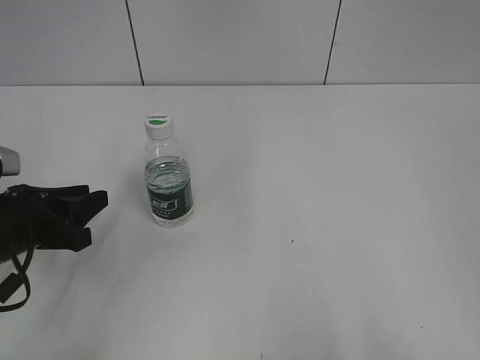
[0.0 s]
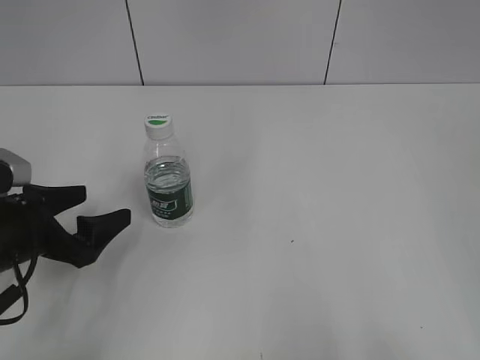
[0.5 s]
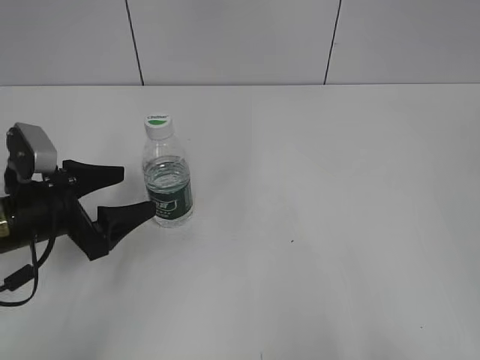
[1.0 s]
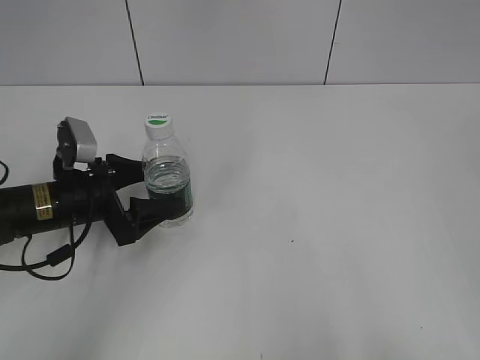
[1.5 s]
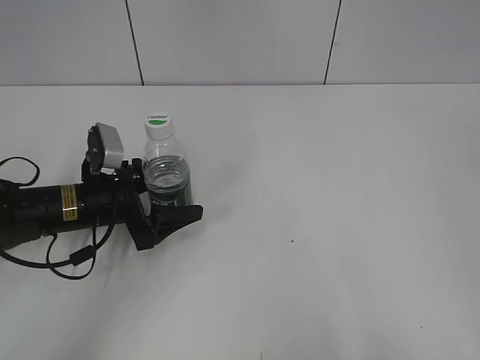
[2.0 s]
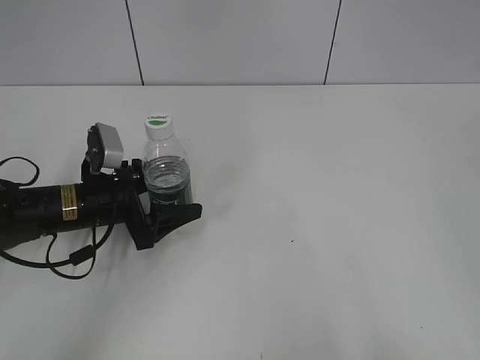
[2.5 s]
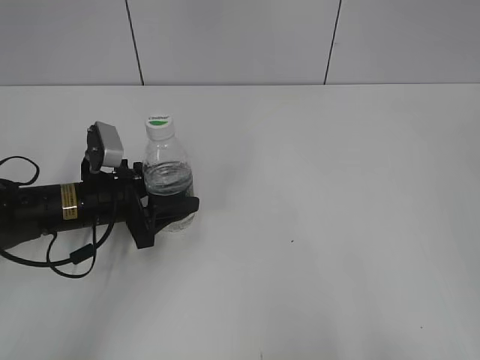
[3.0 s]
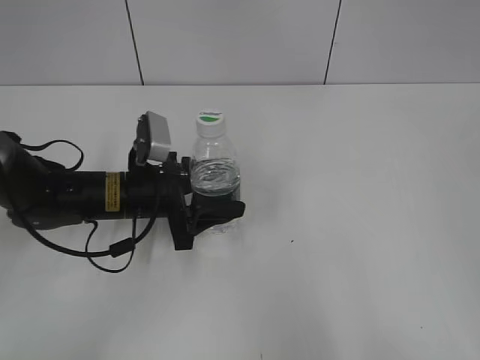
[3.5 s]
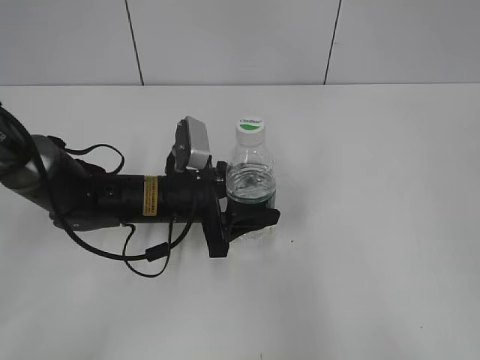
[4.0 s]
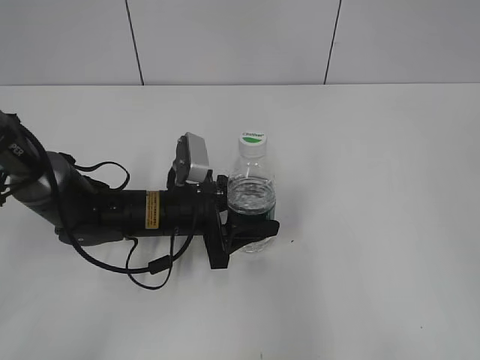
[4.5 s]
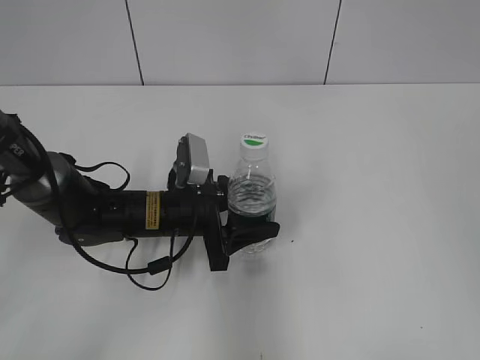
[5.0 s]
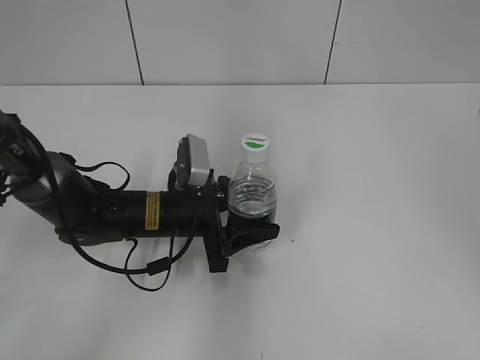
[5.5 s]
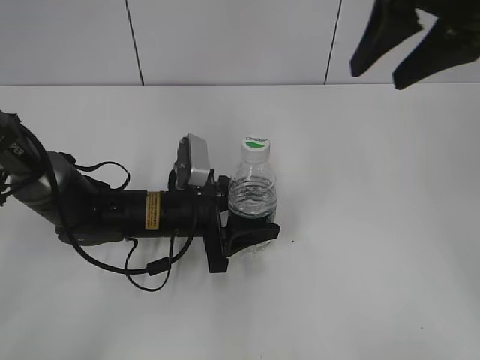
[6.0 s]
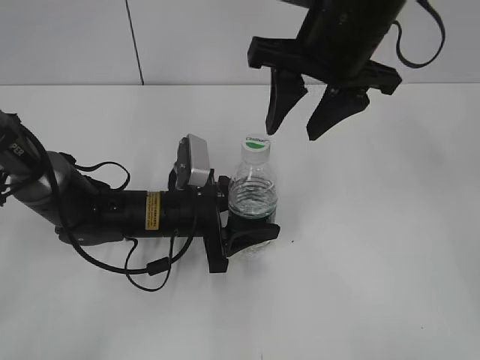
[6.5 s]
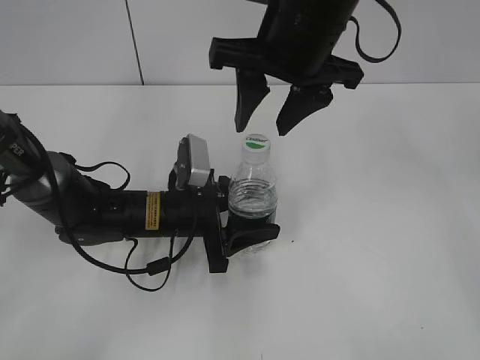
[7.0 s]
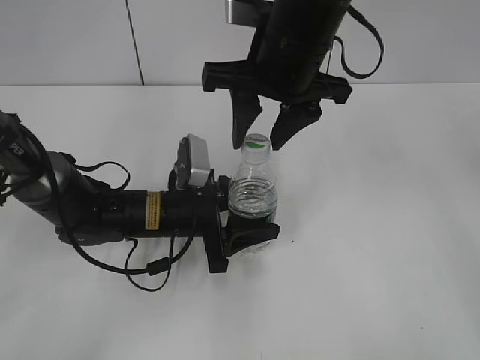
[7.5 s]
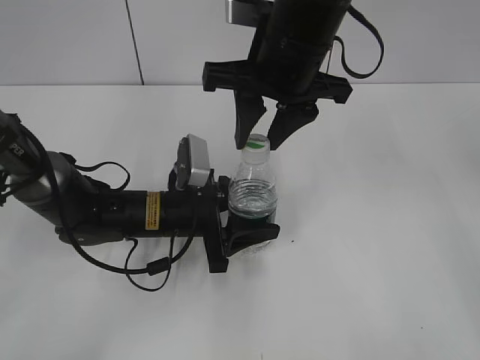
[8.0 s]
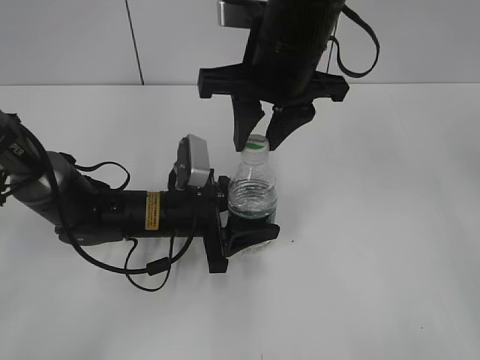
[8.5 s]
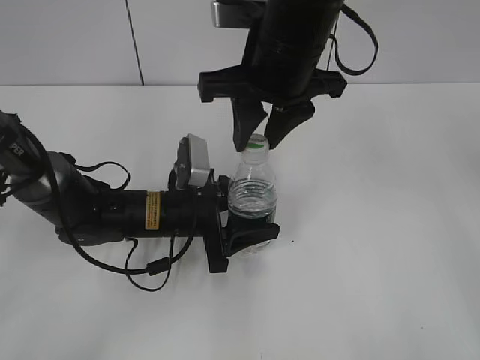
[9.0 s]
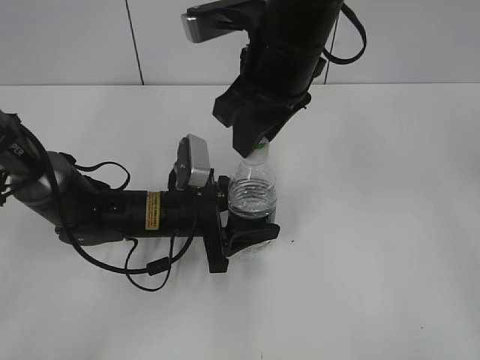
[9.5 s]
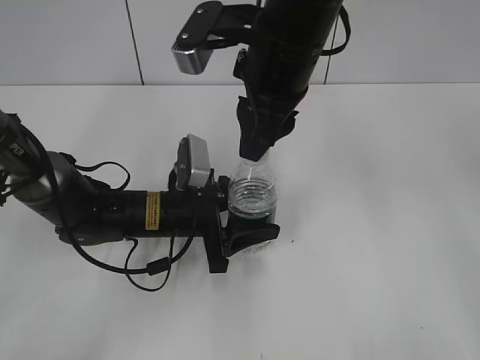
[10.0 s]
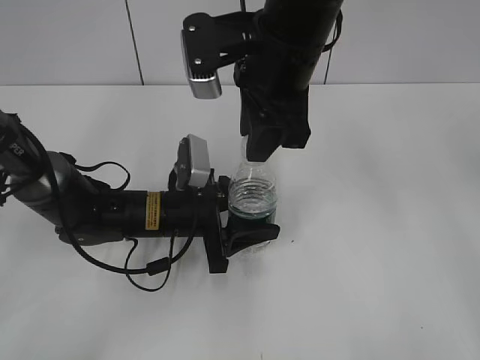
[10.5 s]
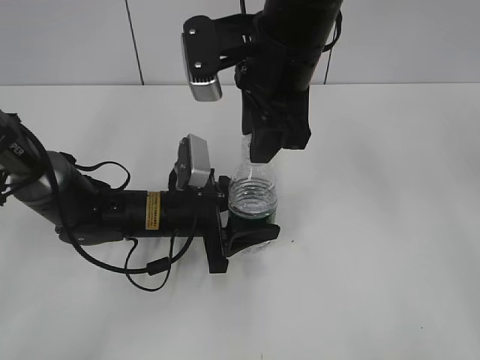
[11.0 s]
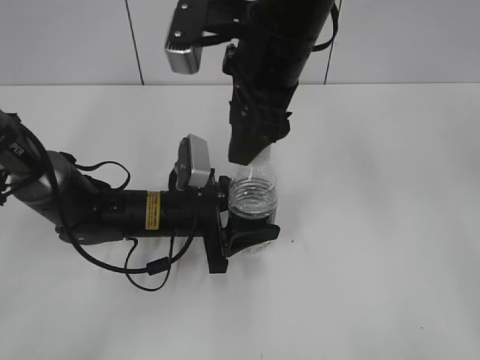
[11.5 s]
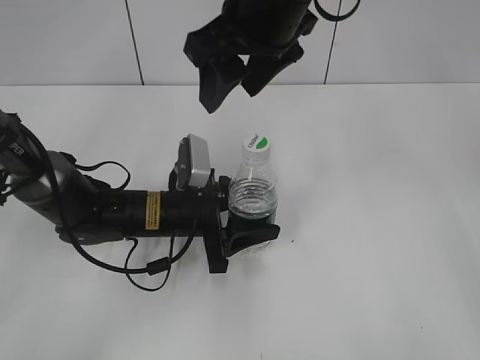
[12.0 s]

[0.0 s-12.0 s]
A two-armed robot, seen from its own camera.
Step, 0.0 to 2.5 s: Grasp the bottle and move it to the center of the table with the left gripper.
Step, 3.0 to 5.0 s: Lift the bottle and move it to the center of the table with the left gripper.
0.0 to 2.0 s: The left gripper moves forward and to the right, about 10 cm, and opens up.
2.0 to 4.0 s: The left gripper shifts some 10 cm to the right, and closes up.
4.0 to 6.0 s: The right gripper heads forward and to the left, covering some 30 cm.
6.0 to 8.0 s: The right gripper heads to the left and downward, covering roughly 15 cm, and closes.
10.0 to 12.0 s: The right gripper opens up.

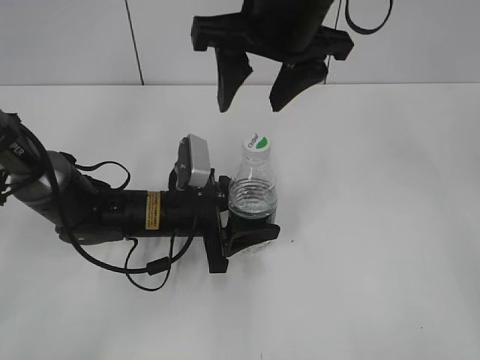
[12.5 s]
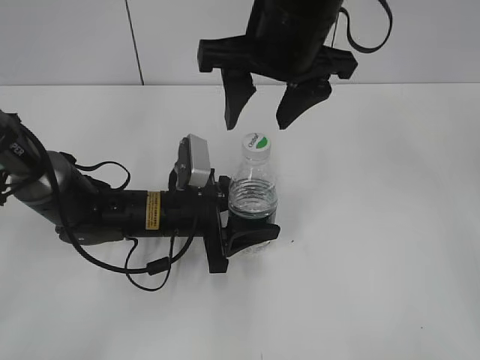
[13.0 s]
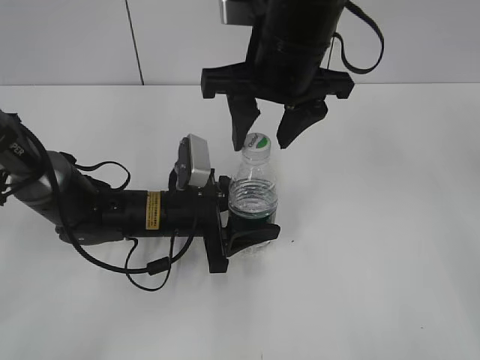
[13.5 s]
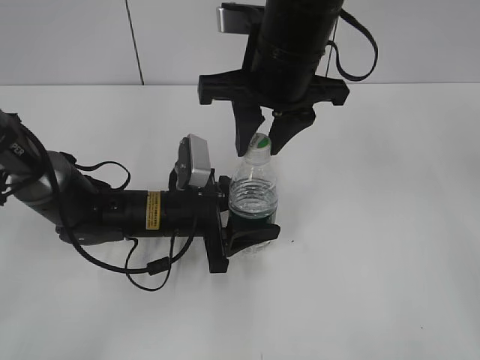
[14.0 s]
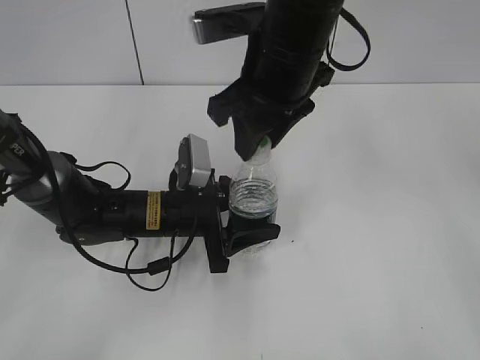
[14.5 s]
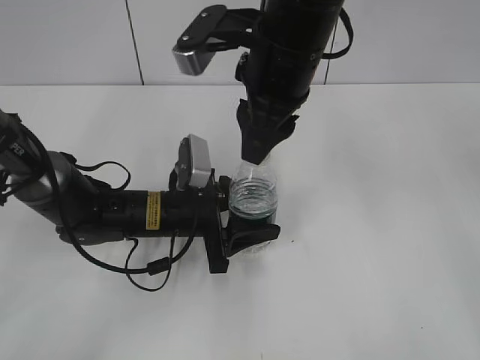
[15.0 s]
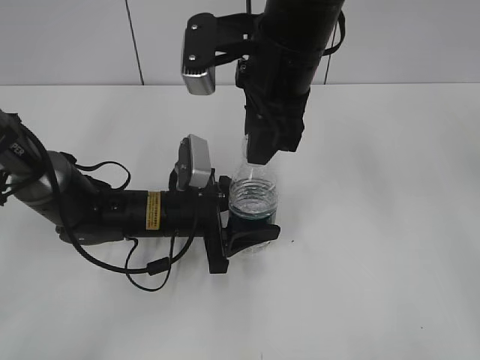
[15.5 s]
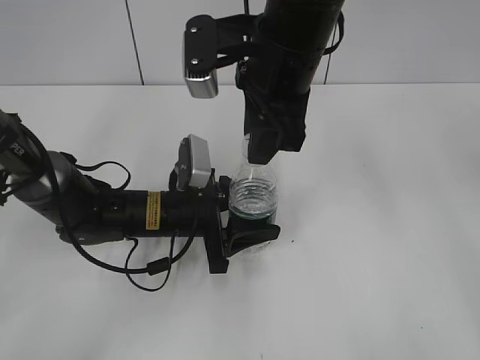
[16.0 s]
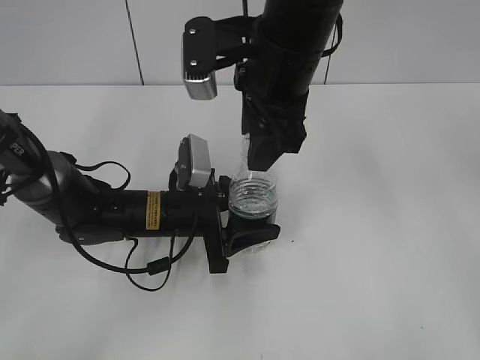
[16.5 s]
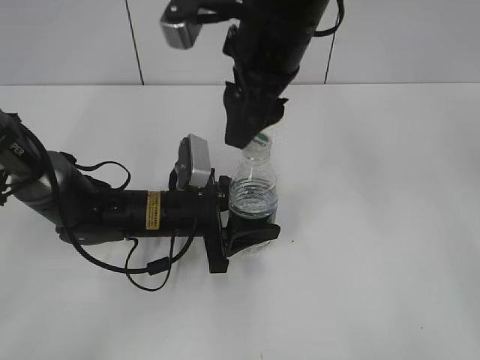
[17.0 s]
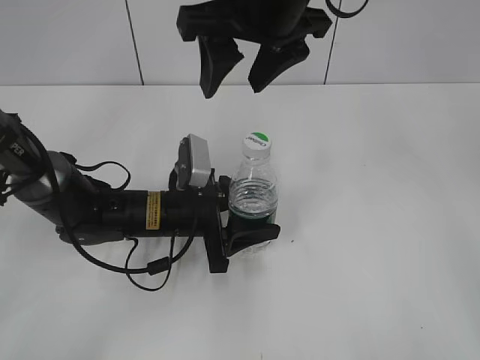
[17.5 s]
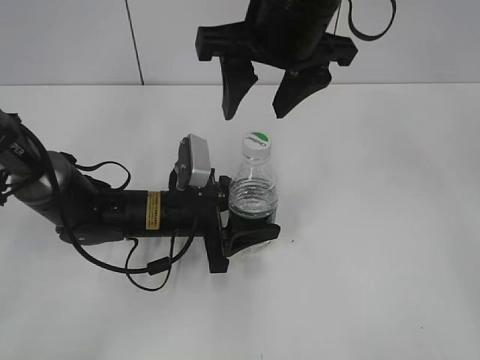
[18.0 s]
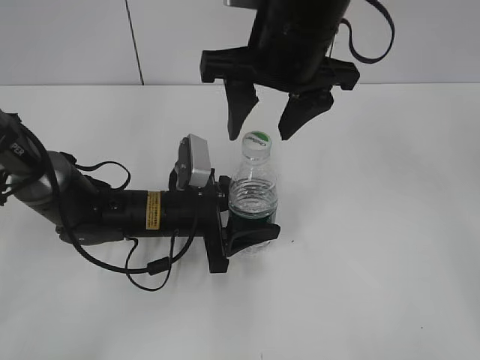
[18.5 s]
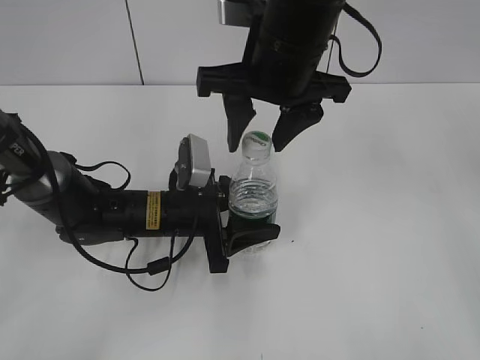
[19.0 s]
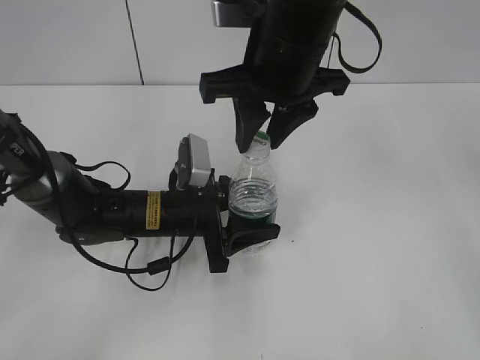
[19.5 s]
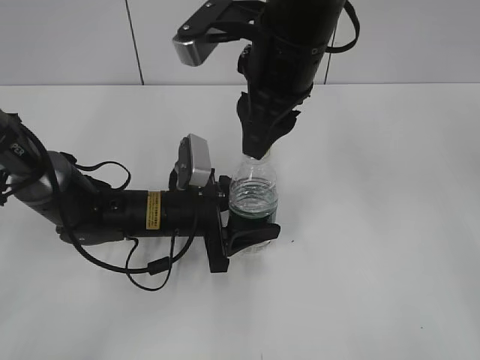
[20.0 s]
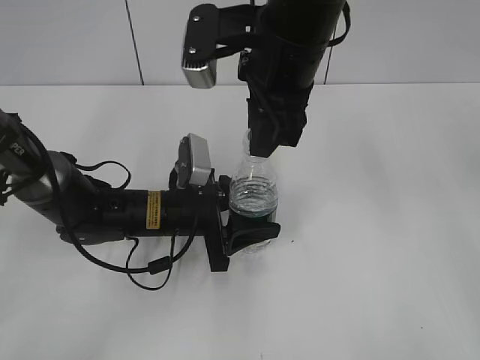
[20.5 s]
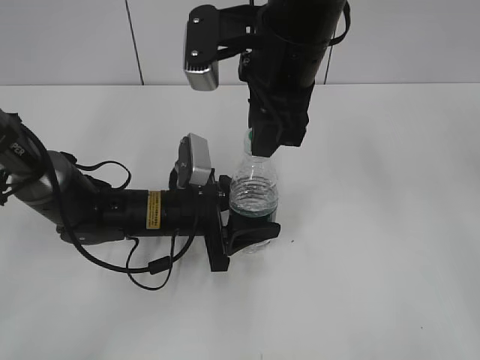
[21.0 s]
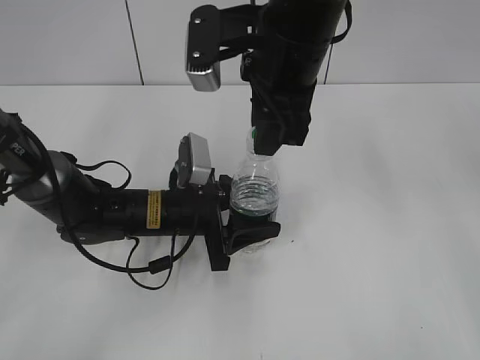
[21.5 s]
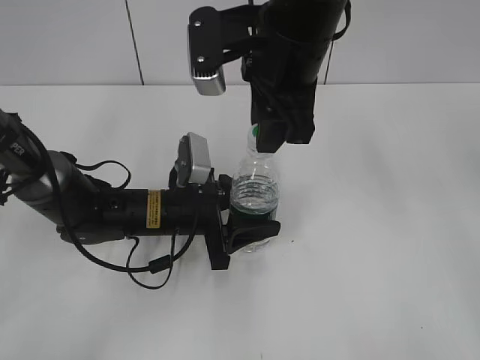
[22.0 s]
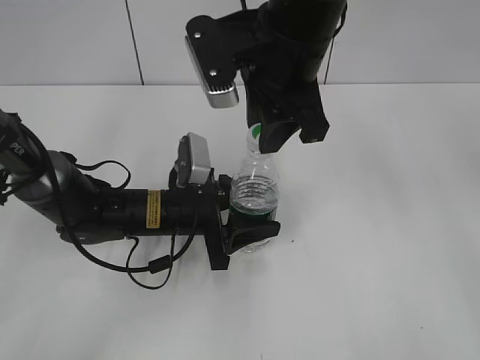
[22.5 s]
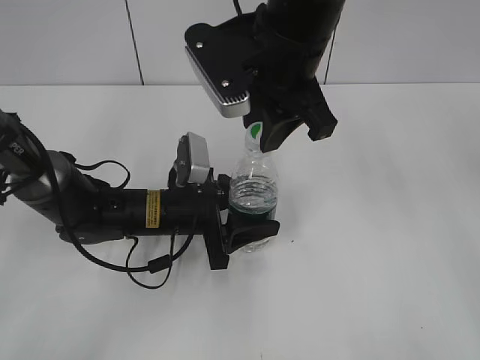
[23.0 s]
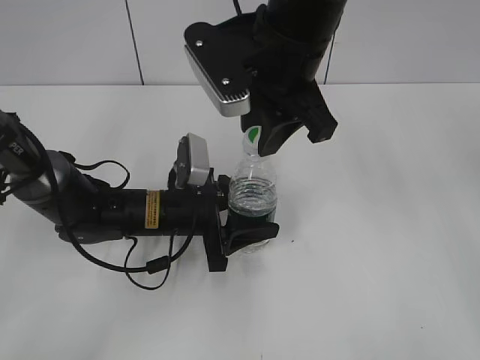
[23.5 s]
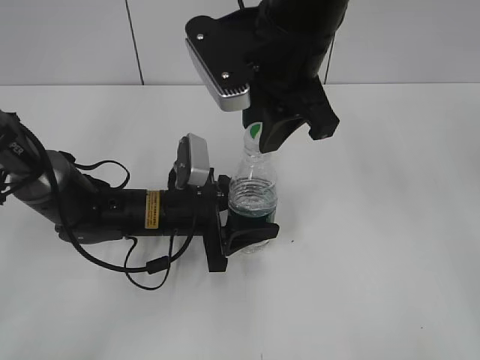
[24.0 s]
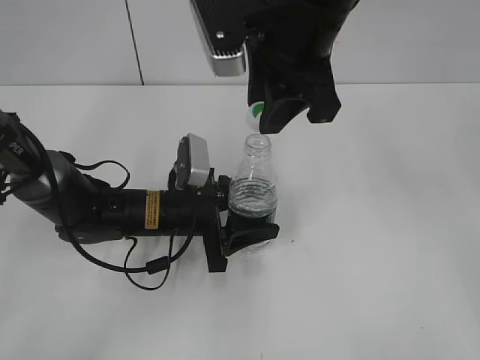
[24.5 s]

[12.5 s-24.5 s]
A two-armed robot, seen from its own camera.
Step, 12.5 to 24.5 s: Unscrew the bottle cap with the right gripper while holding the bottle with the left gripper.
12.5 to 14.5 s: The right gripper closes.
14.5 to 16.5 s: The right gripper opens its fingers.
18.5 to 20.5 s: The right gripper closes up.
20.5 to 22.5 s: There are only small adjustments of the grippers.
22.5 to 24.5 s: The grippers move only a little.

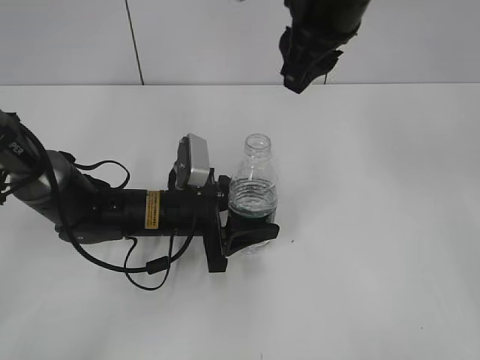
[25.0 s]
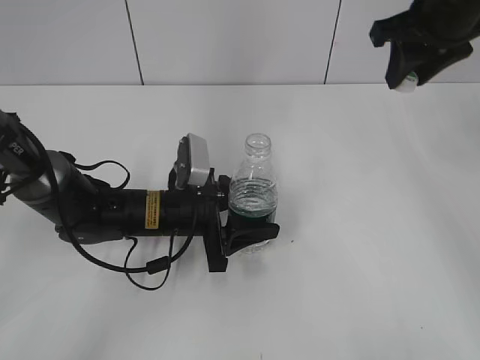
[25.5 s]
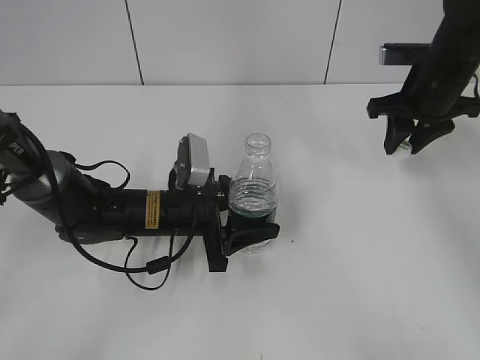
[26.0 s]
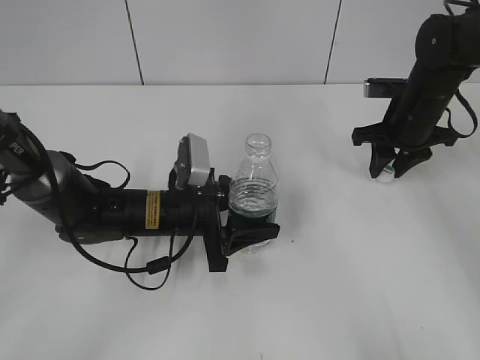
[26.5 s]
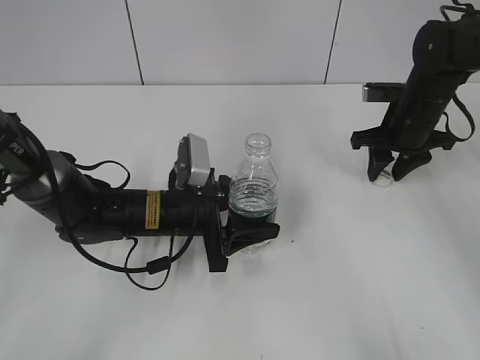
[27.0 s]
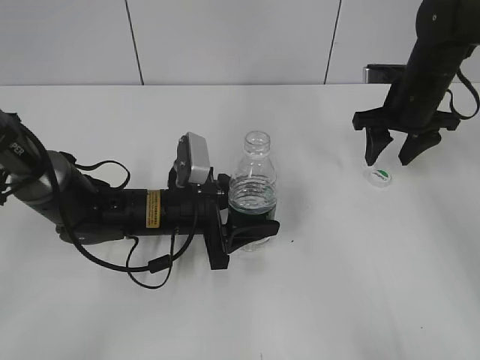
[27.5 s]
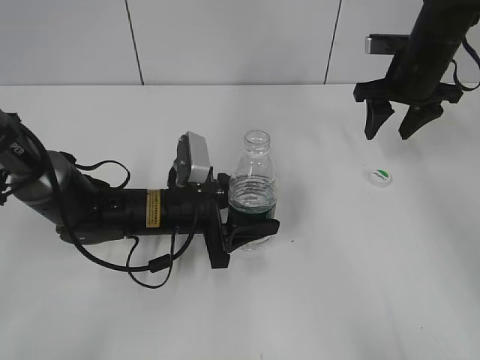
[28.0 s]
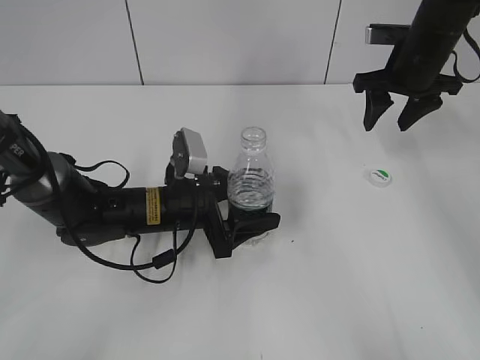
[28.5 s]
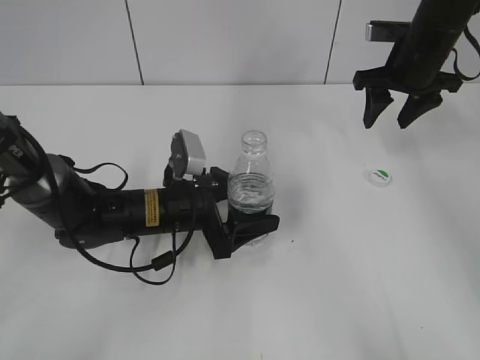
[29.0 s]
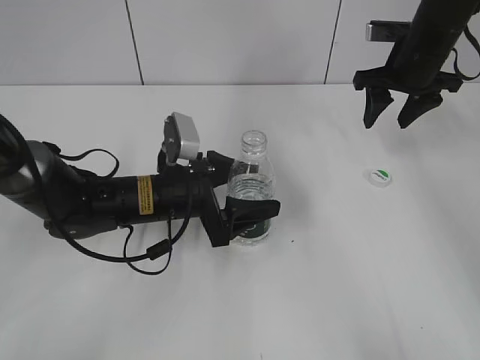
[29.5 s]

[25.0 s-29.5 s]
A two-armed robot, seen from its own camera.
Step, 25.0 to 27.5 s: Place the bottle cap on the table with the right gripper.
25.0 to 27.0 s: The right gripper moves downward, to the right and forward, roughly 25 cm.
27.0 to 29.5 s: The left gripper opens. The right gripper is displaced upward by about 10 cm, and opens up.
